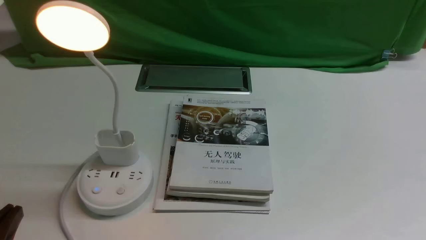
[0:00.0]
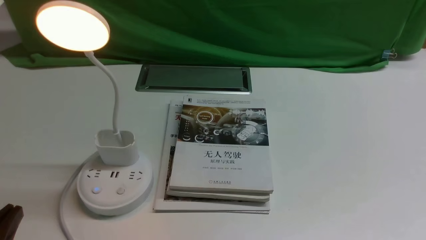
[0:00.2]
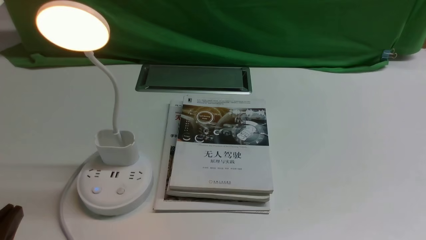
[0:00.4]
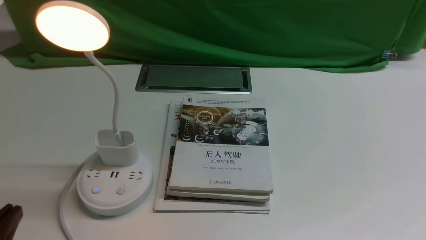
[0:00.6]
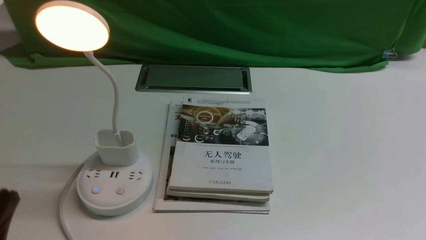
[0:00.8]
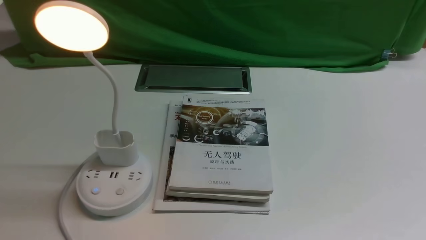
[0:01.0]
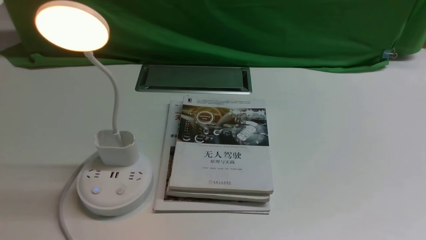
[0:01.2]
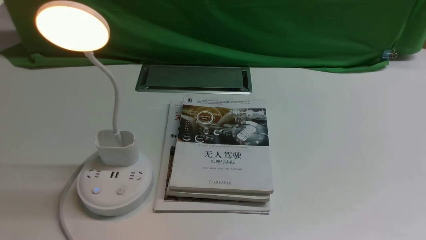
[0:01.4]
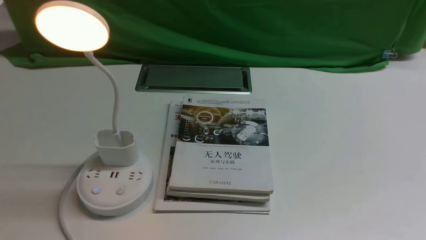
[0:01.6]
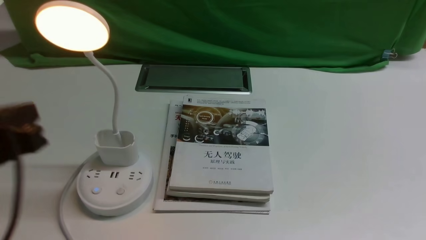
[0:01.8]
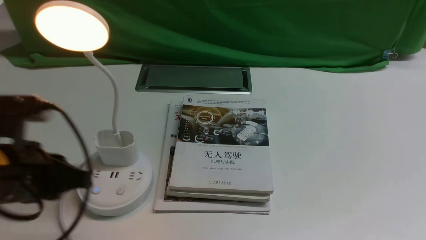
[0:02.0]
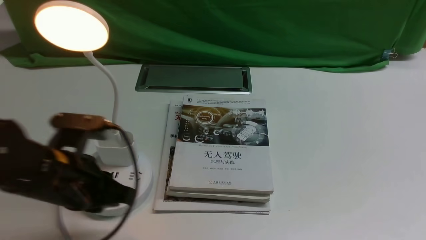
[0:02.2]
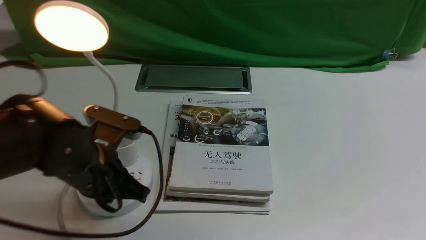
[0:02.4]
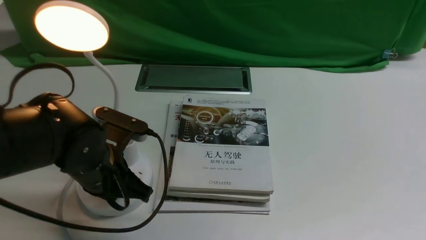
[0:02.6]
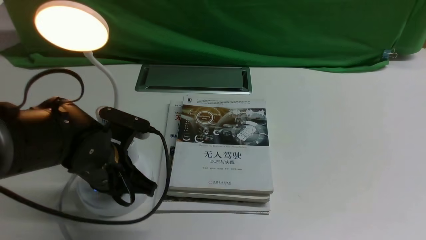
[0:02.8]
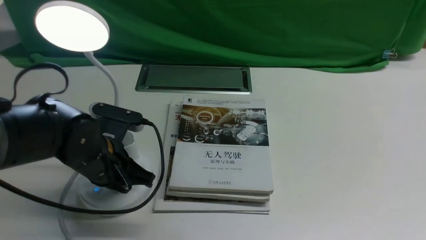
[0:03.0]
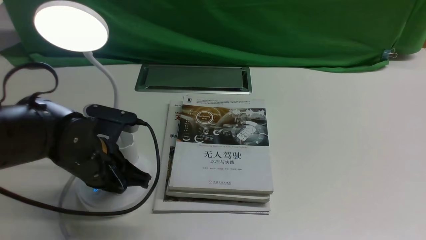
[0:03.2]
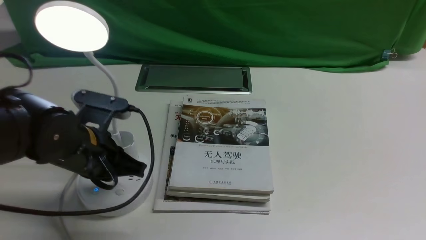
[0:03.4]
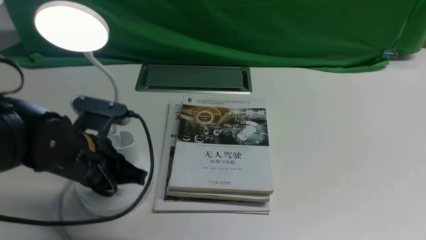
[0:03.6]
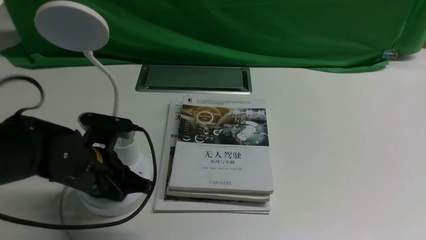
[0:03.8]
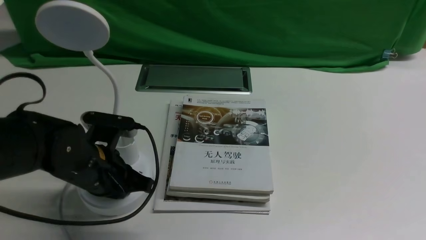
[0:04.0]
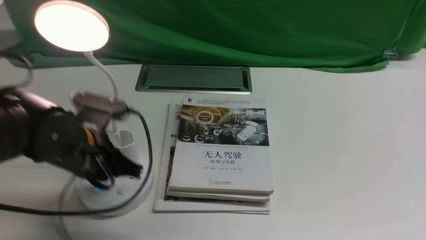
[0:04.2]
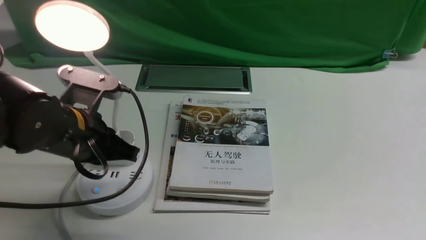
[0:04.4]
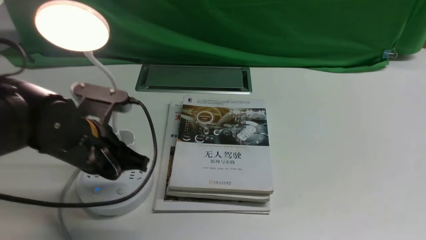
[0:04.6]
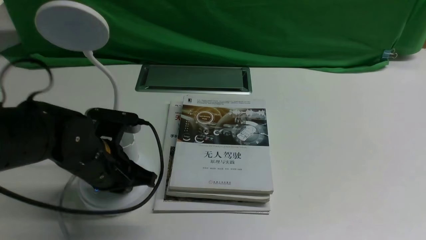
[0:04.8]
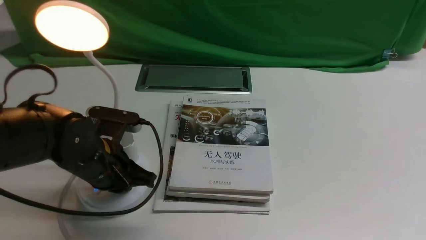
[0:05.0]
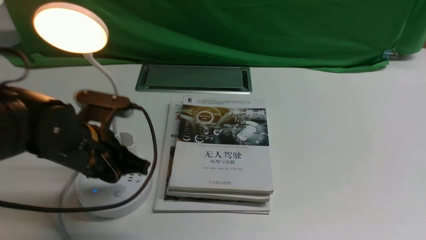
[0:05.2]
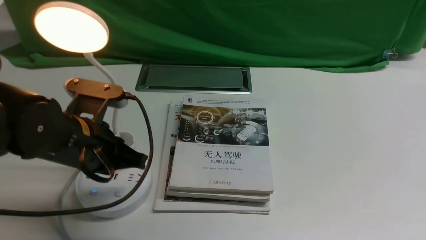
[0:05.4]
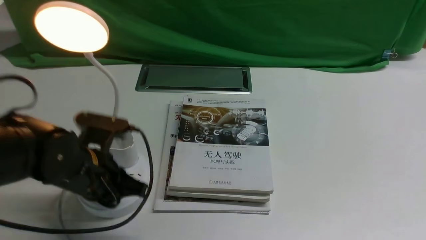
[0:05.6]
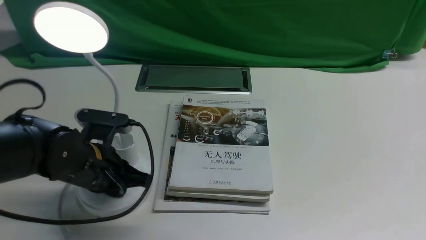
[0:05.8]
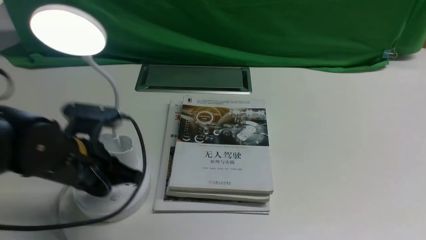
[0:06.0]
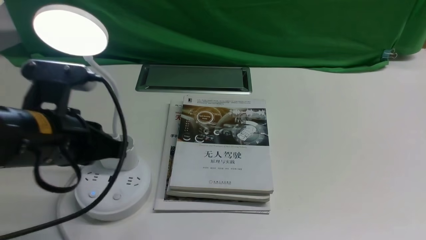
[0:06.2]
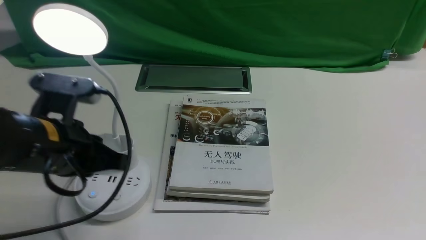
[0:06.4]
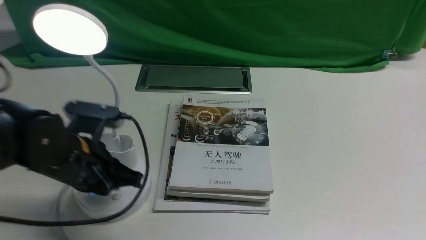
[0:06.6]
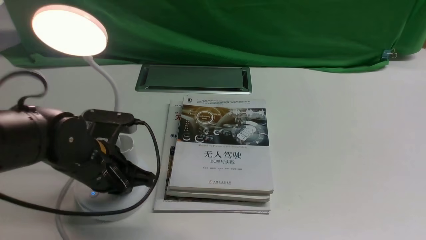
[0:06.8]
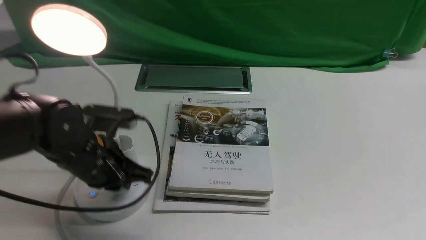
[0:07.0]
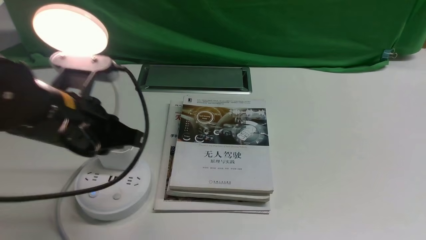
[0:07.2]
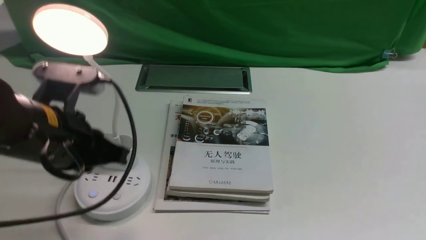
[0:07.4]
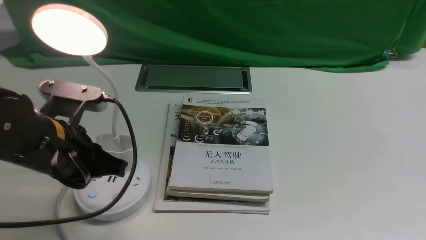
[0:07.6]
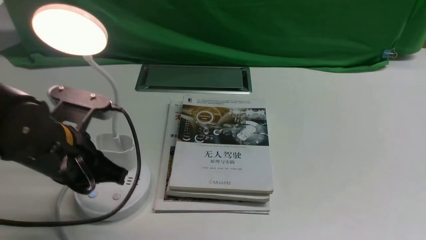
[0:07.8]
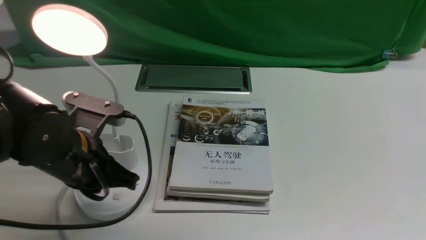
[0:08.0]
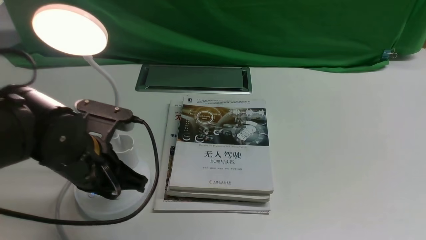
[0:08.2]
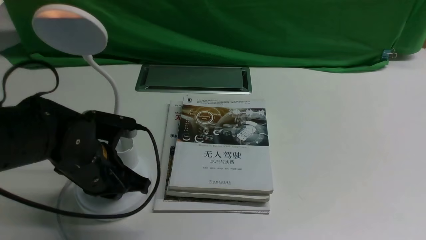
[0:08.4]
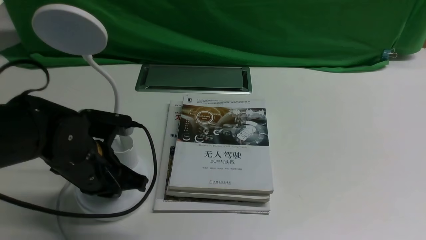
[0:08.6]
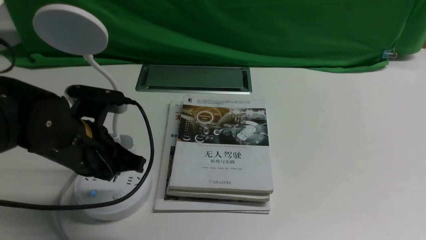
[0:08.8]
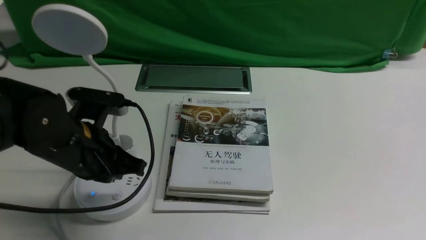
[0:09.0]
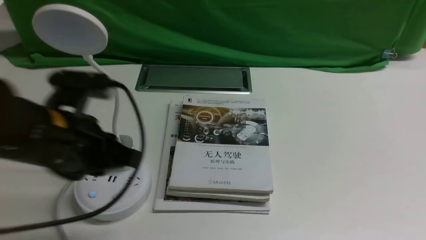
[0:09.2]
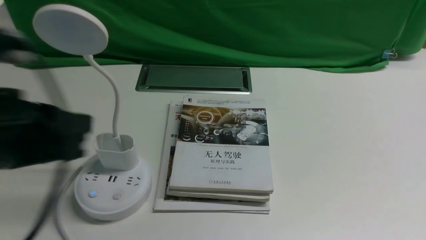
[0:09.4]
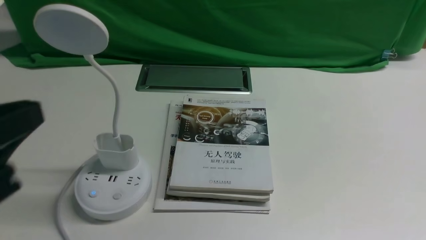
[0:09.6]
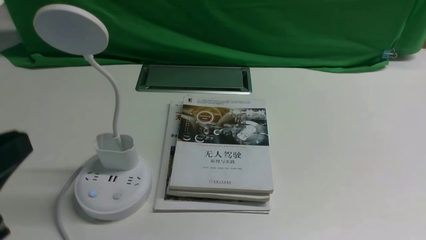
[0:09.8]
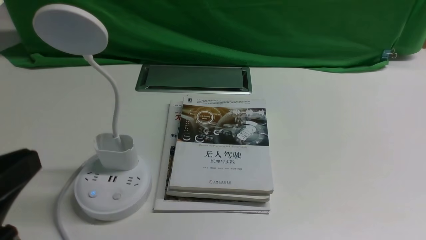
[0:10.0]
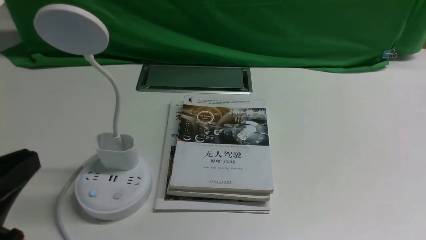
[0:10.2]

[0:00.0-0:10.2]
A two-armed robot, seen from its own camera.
Task of the whole recording: turn off the desk lamp on the white desktop by hand.
Step, 0:00.0 to 0:08.6: use the left arm to press the button switch on the lamp holder.
0:01.4 to 0:03.0: The left gripper moves forward, downward and to the right, some 25 cm.
0:03.0 to 0:05.8: The grippers stay close to where they were, moving slightly.
0:05.8 to 0:07.2: The left gripper swings up and down, roughly 5 cm each way, with 2 reversals.
0:08.8 to 0:10.2: The left gripper travels backward and upward by roughly 20 cm.

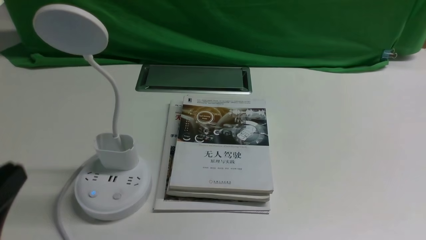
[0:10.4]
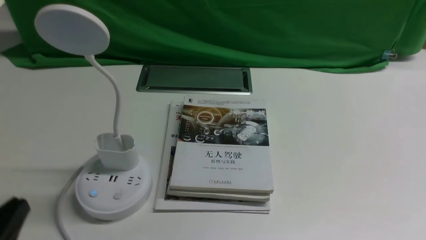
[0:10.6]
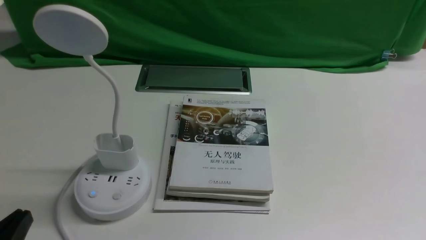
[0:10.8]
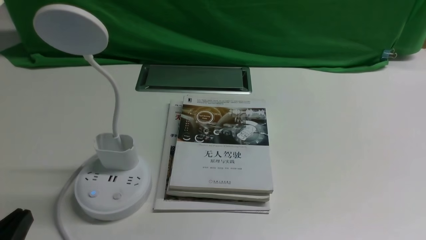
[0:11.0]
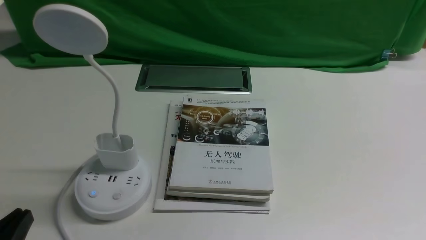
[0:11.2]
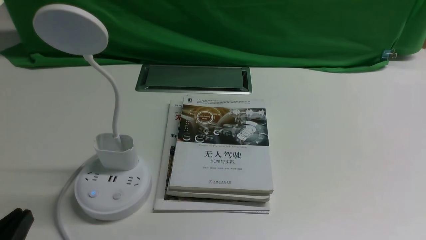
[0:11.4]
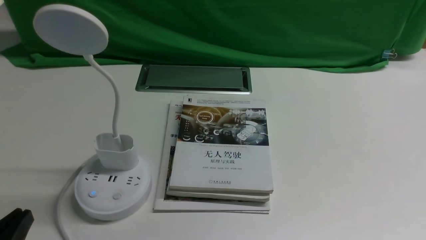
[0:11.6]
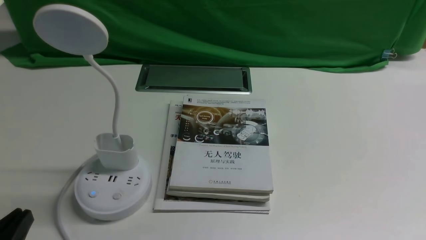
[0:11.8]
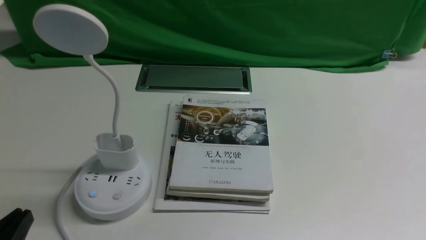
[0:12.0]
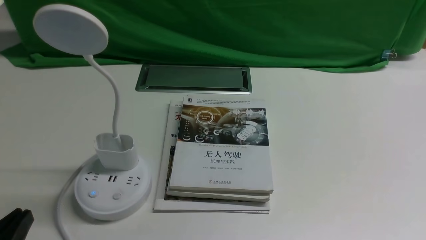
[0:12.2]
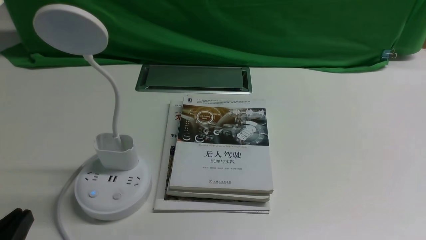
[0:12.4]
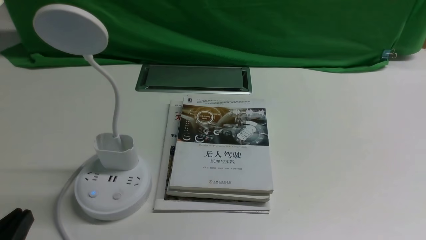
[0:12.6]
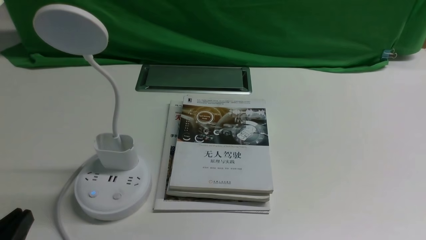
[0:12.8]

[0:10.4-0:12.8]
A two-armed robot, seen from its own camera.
Task of the whole recording: turn off the desk lamp on the white desktop by hand.
0:10.4 to 0:11.6: The left gripper heads downward, covering about 10 cm, and opens its fingers.
0:11.6 to 0:12.8: Neither gripper changes place.

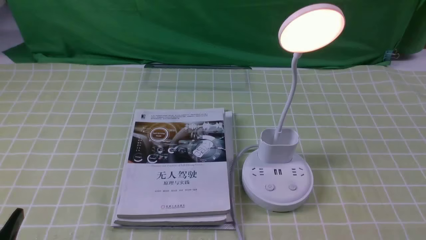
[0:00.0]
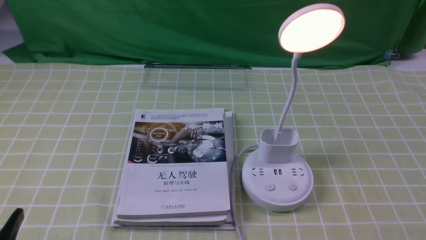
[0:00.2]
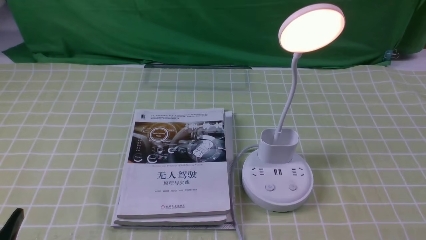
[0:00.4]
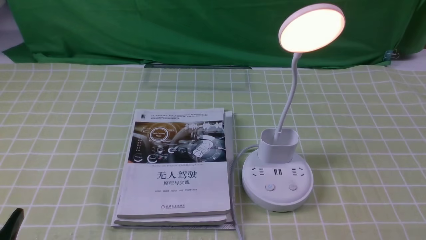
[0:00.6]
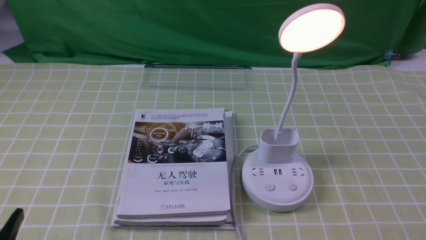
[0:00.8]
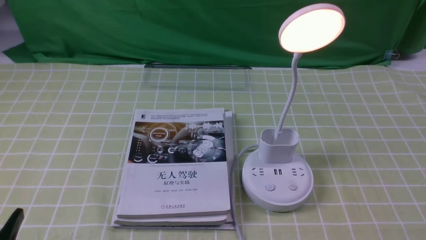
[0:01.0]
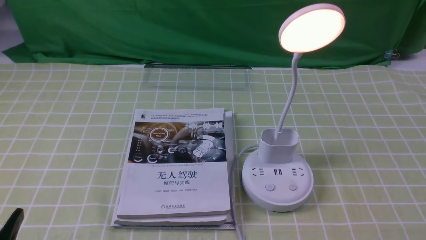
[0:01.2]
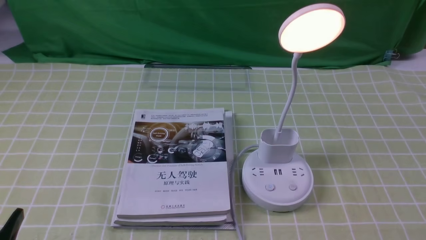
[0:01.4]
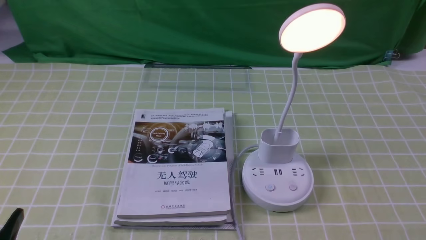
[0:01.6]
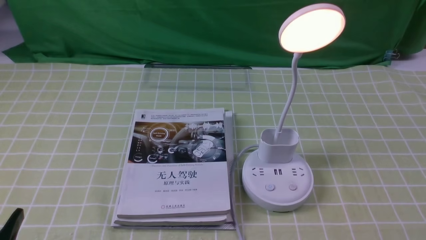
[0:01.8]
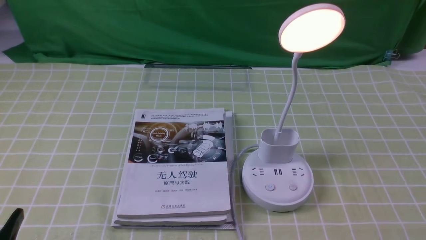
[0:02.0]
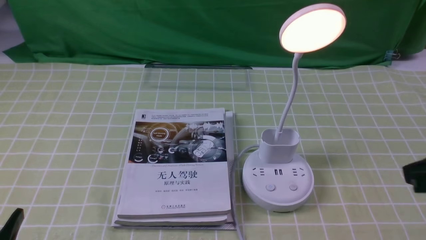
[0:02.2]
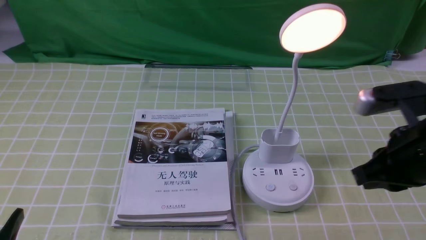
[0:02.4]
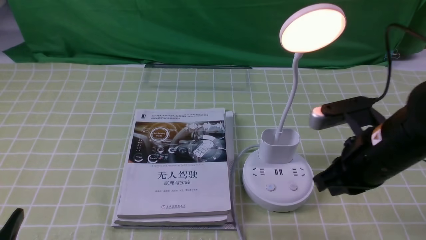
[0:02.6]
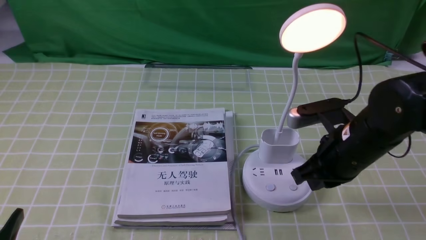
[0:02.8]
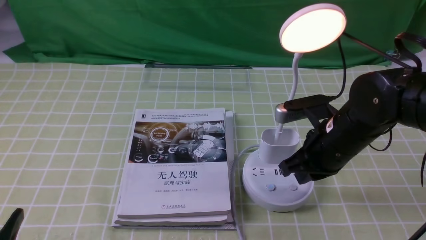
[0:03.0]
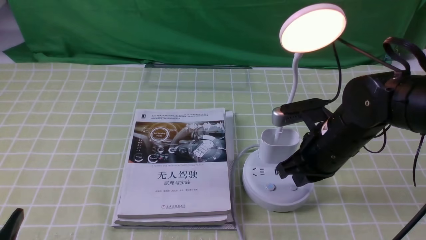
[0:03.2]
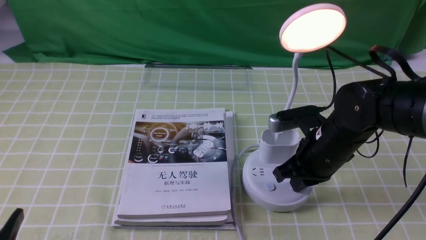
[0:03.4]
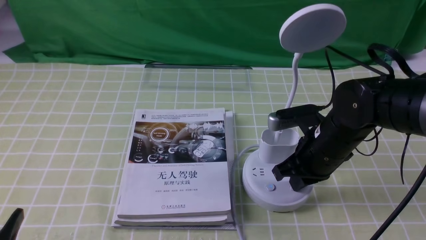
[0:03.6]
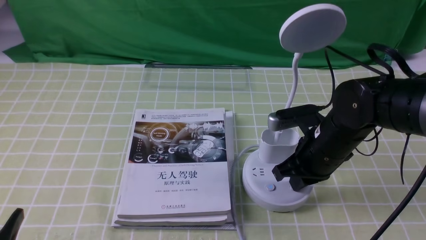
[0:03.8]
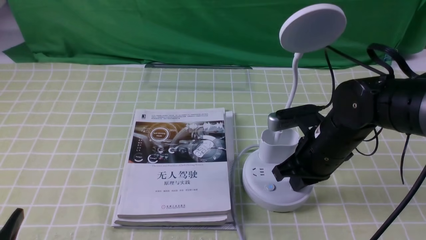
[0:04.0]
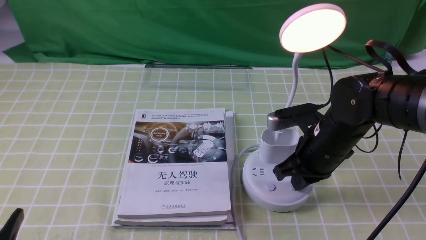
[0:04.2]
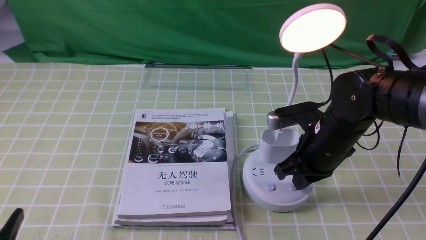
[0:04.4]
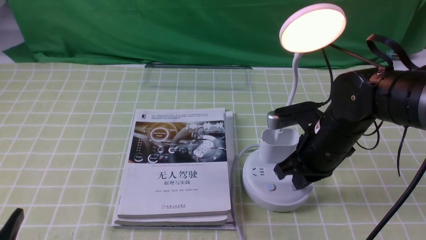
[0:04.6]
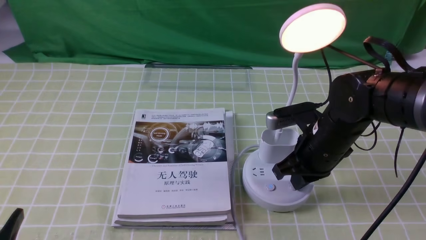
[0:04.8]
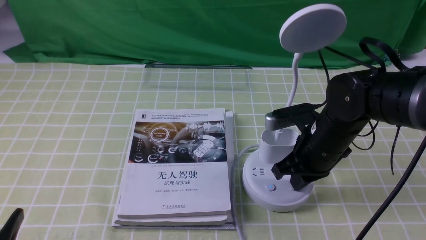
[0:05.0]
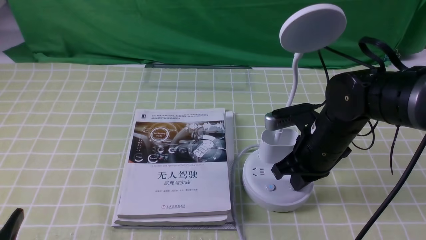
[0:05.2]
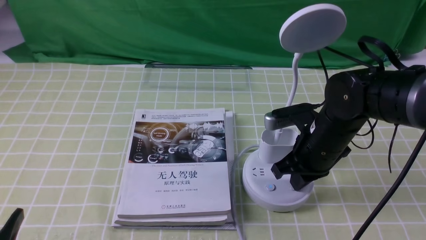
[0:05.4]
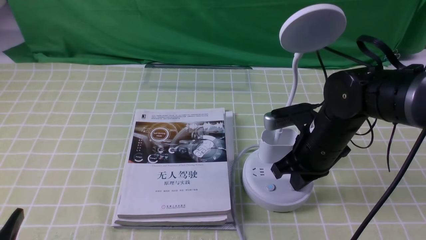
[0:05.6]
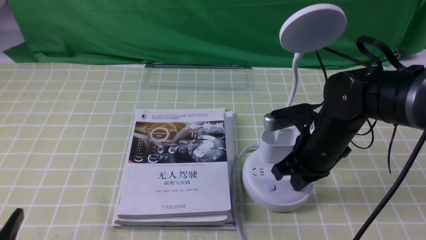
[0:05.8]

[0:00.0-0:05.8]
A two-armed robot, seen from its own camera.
Task of the whole recording: turn off the desk lamp on the green coffee tablecloth by hand.
0:01.4 to 0:02.8: The right gripper heads forward and to the left, covering roughly 25 cm, and closes its fingers.
0:02.8 to 0:04.4: The right gripper changes place by about 5 cm.
0:04.4 to 0:05.8: There are only small adjustments of the grippers.
